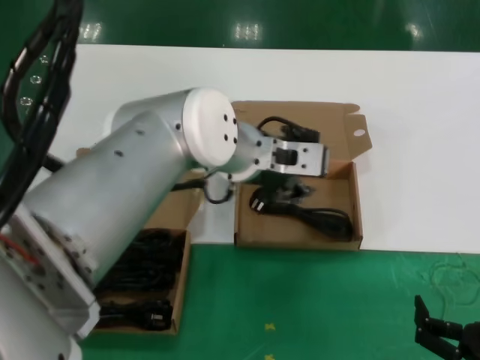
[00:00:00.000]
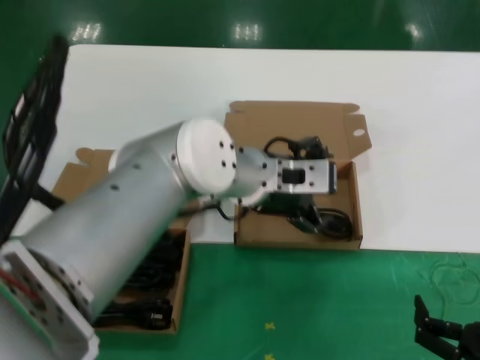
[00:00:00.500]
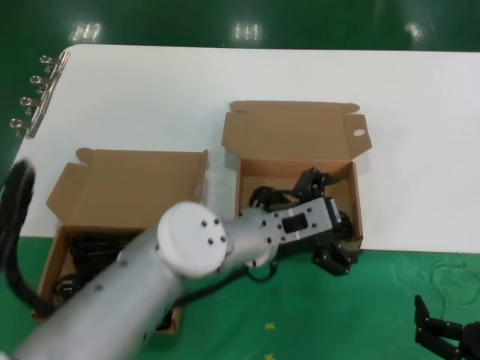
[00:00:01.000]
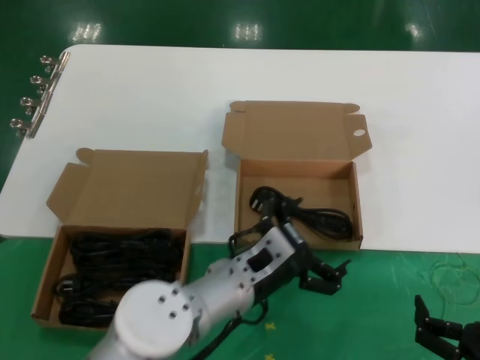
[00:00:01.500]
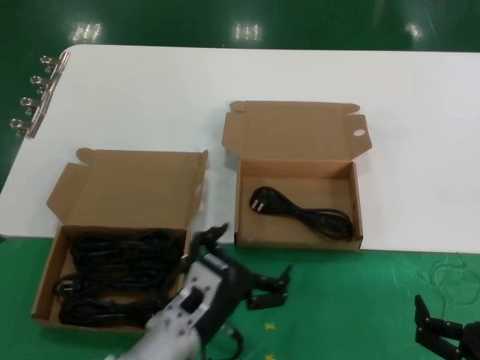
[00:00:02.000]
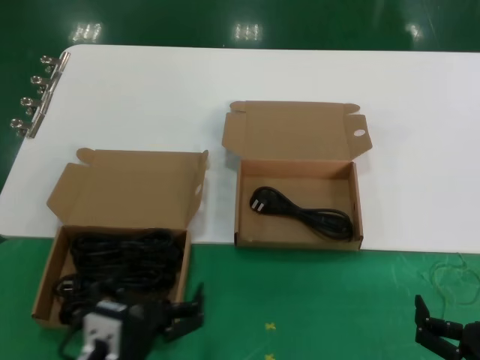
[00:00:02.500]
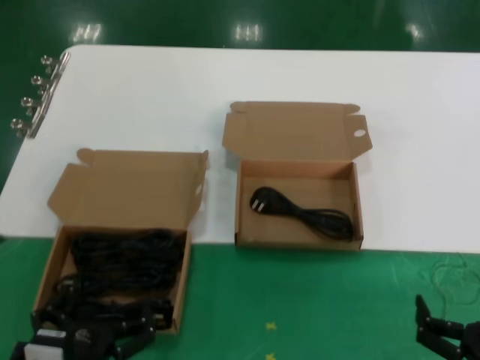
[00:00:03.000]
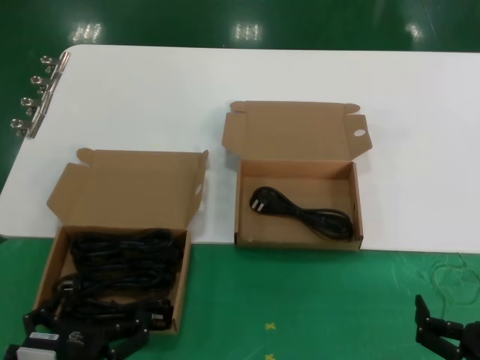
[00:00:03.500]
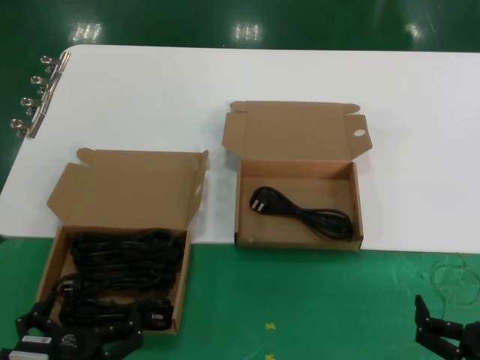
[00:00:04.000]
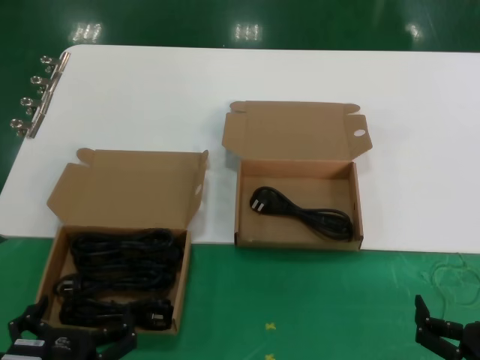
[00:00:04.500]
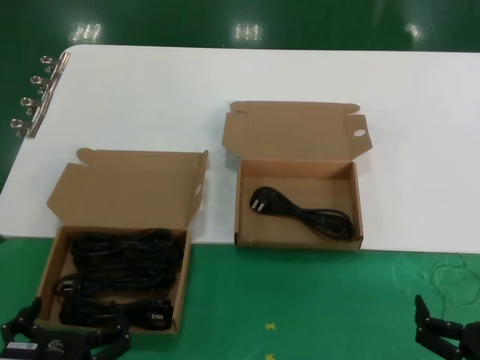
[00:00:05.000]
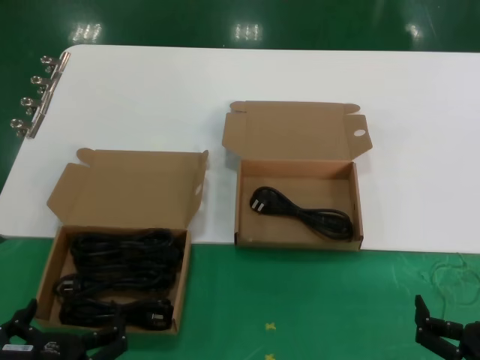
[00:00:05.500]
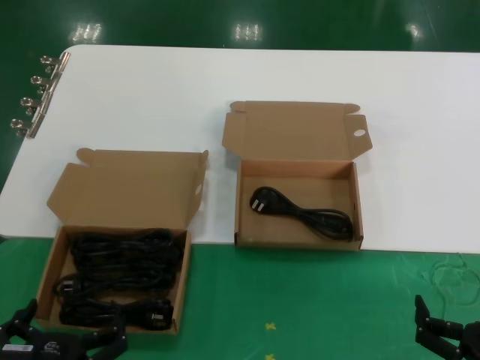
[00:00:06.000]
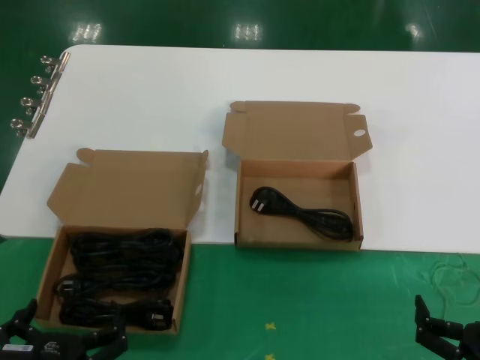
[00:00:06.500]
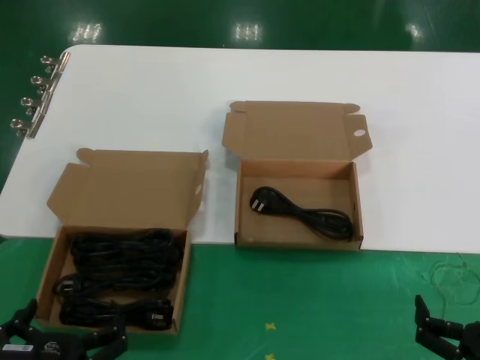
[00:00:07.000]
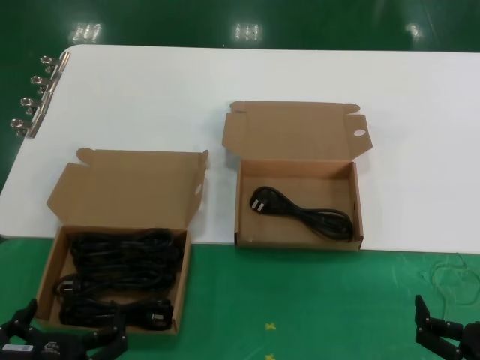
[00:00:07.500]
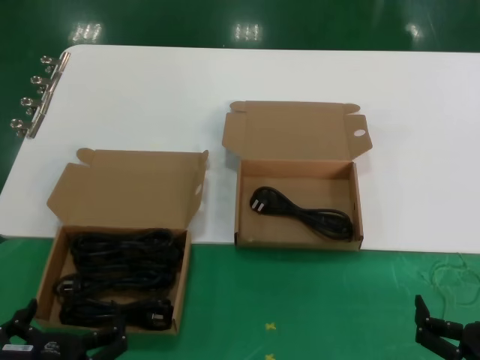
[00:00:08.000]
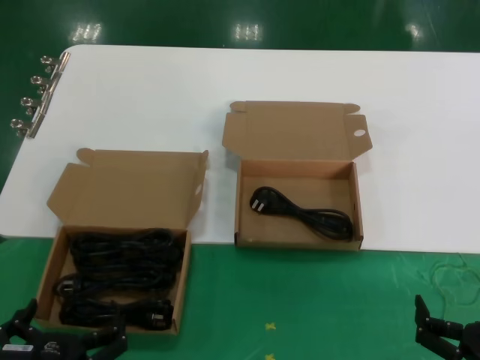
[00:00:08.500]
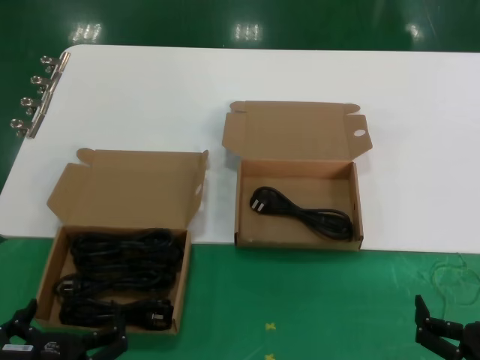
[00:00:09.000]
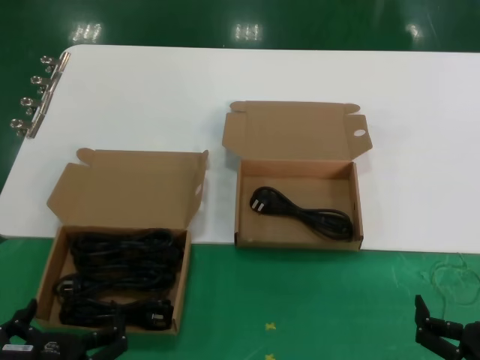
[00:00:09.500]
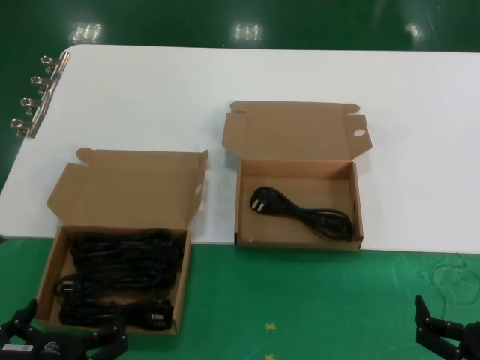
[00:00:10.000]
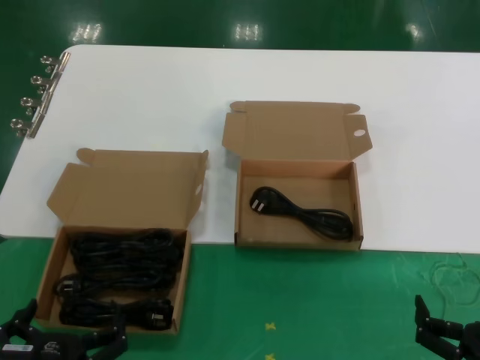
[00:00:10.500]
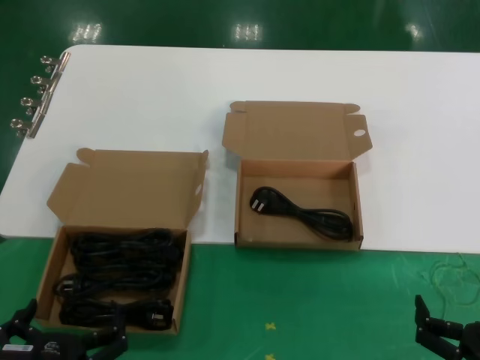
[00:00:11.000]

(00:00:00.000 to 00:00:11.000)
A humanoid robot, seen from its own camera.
Task of the whole recording: take the parts from the box containing them and put them into an empty box.
00:00:00.000 - 00:00:02.000: The left hand is displaced downward and backward by some 25 cm.
00:00:02.000 - 00:00:03.500: The left hand moves backward and to the left, about 15 cm.
00:00:03.500 - 00:00:05.500: The hands stay close to where they were, moving slightly.
00:00:05.500 - 00:00:11.000: Neither hand changes place.

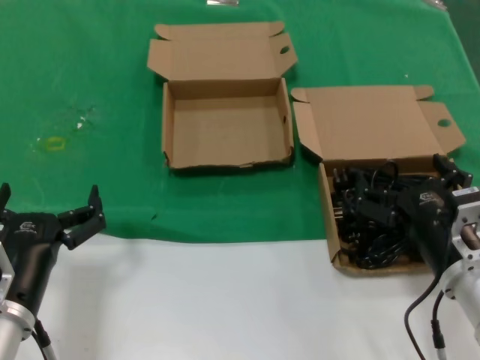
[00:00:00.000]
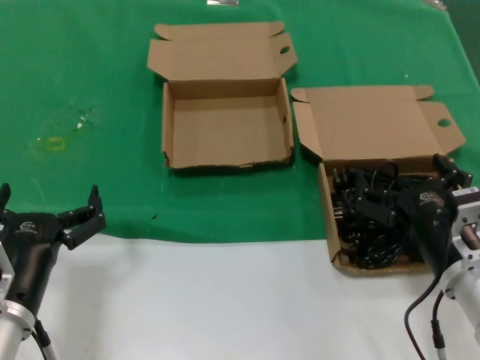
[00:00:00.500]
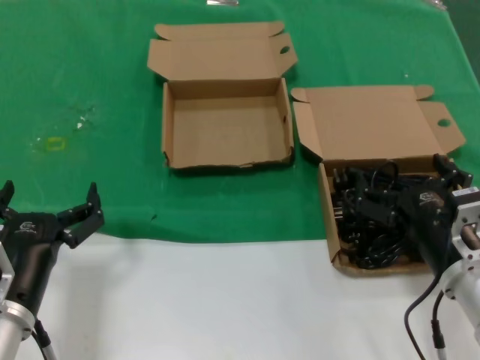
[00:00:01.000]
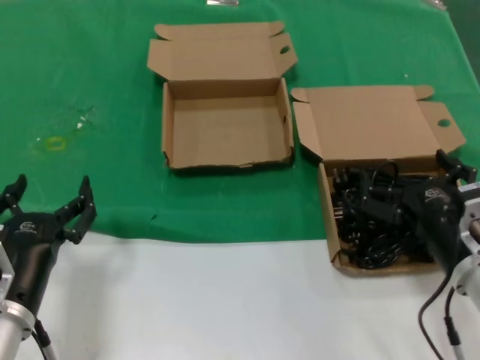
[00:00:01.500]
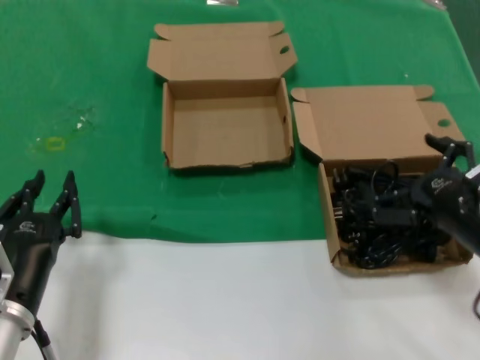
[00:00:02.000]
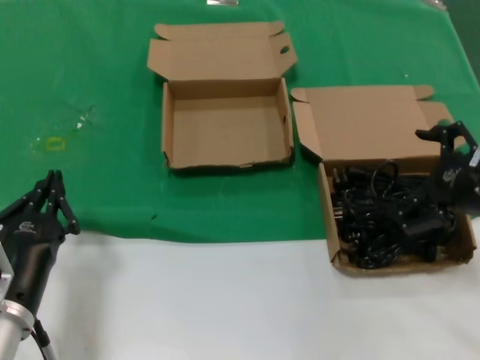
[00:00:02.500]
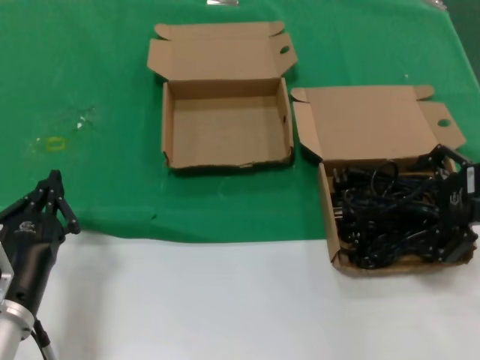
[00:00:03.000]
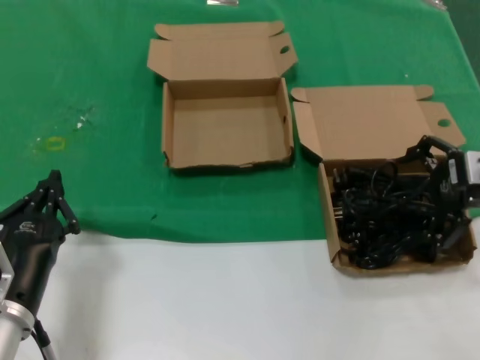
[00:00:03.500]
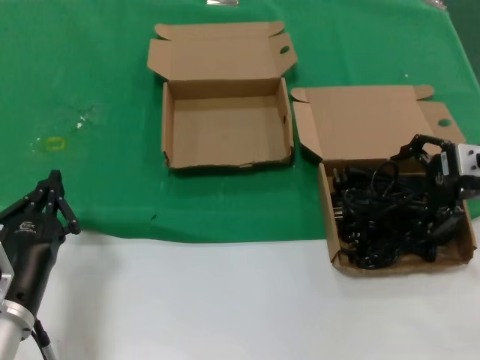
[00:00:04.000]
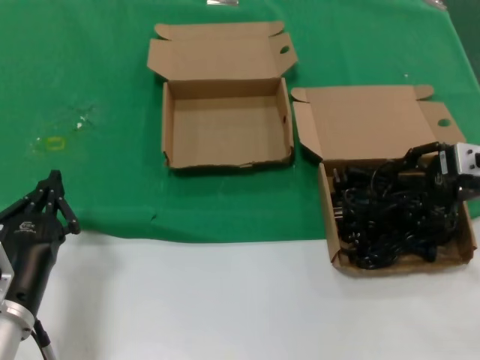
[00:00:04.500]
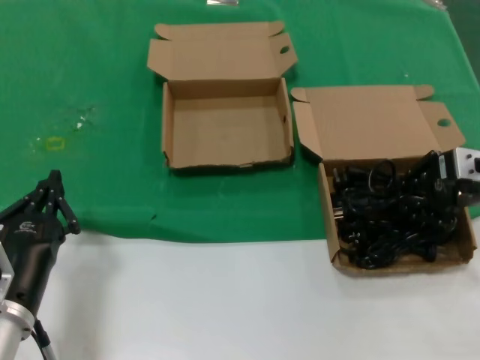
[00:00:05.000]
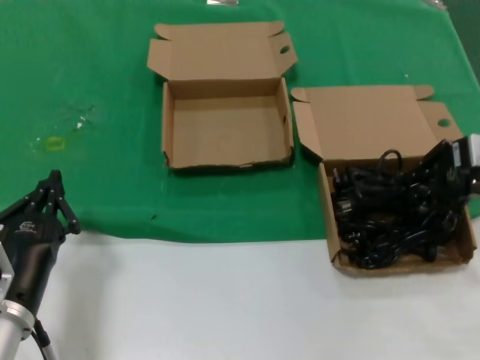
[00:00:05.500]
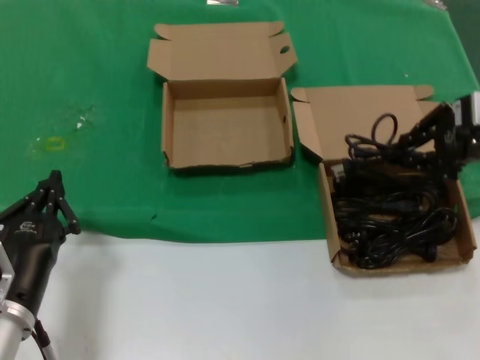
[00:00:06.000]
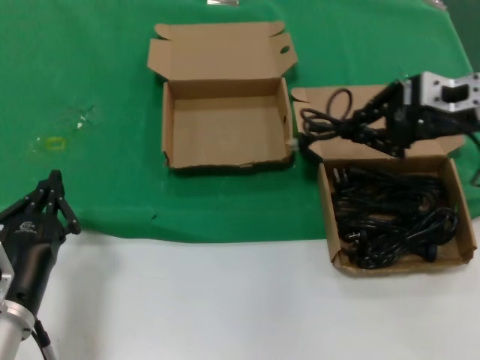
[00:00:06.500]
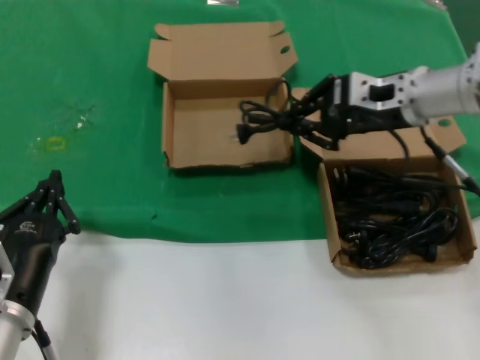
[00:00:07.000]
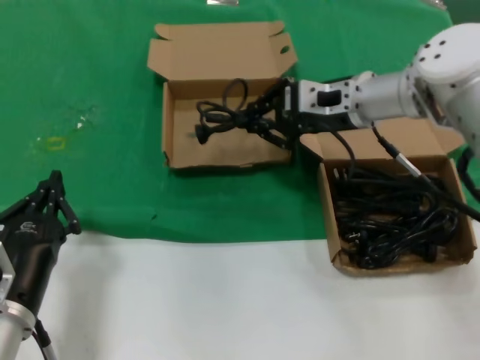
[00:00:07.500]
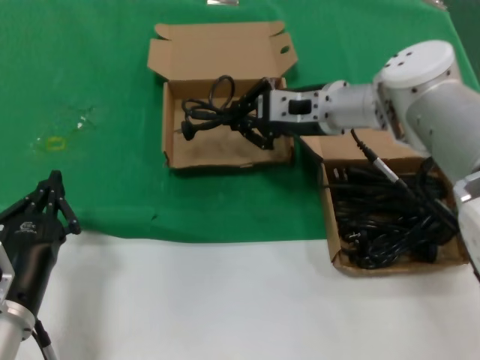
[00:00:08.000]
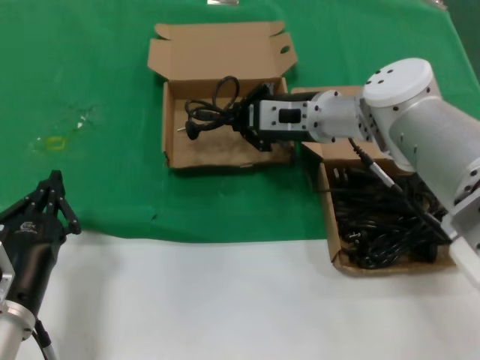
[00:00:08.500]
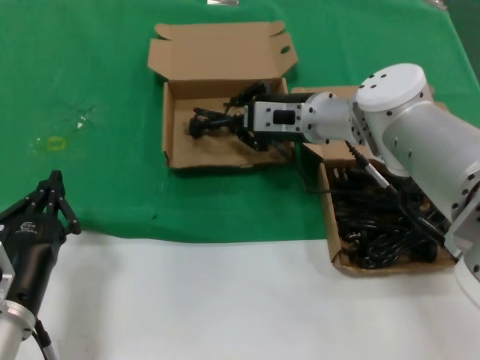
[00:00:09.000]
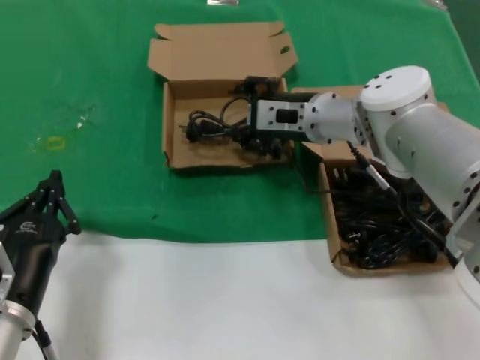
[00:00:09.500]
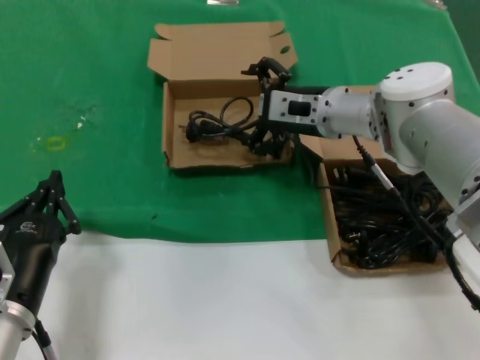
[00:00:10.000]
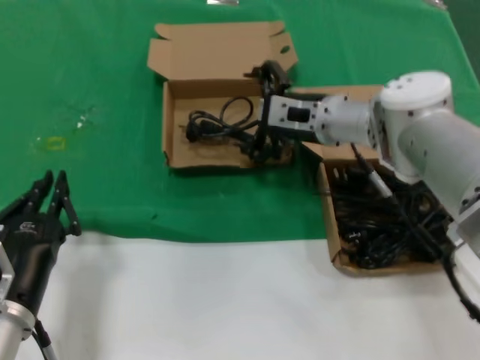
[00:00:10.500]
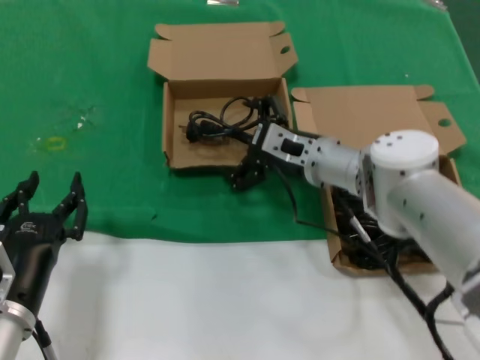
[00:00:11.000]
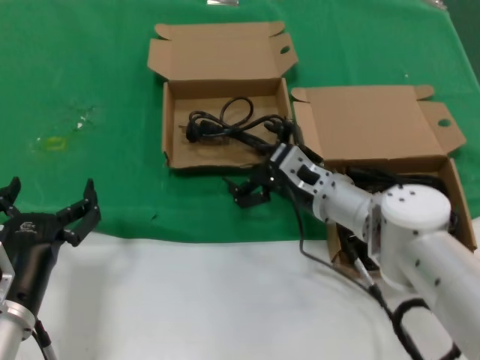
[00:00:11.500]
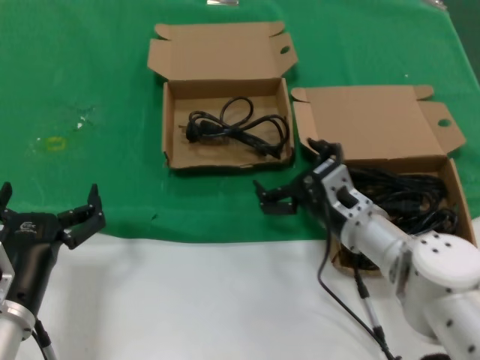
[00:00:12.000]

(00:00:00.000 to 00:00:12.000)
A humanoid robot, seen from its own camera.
Task of the whole recording: take the parts from the box containing them and put them into an empty box.
Step, 00:00:00.000 - 00:00:04.500: Grasp the data cable.
Step, 00:00:05.000 - 00:00:09.000: Place the data cable in the another box.
00:00:00.000 - 00:00:02.000: The right hand shifts about 10 cm to the right and upward.
00:00:02.000 - 00:00:04.000: The right hand shifts roughly 20 cm forward, upward and to the right.
00:00:04.000 - 00:00:06.000: The right hand moves upward, some 5 cm.
00:00:06.000 - 00:00:08.000: The right hand is displaced to the left and forward by approximately 25 cm.
00:00:08.000 - 00:00:10.000: There are only small adjustments of the hands.
00:00:10.000 - 00:00:12.000: The right hand shifts approximately 20 cm downward and backward.

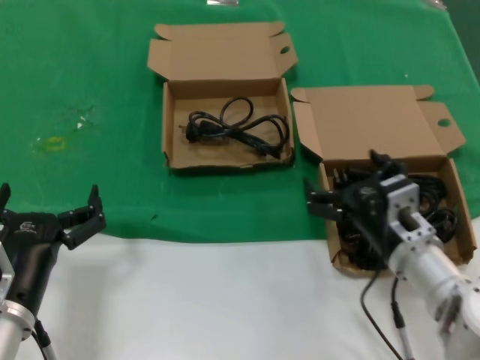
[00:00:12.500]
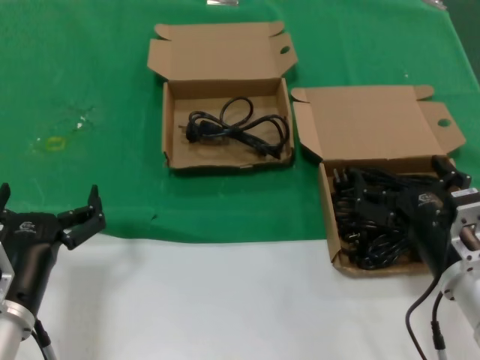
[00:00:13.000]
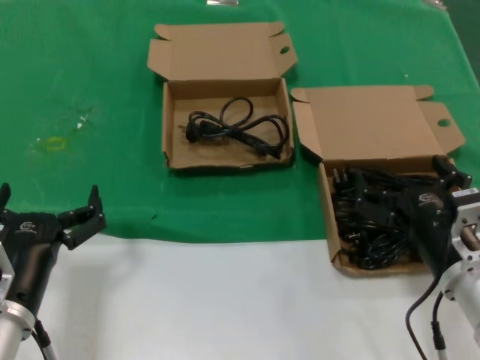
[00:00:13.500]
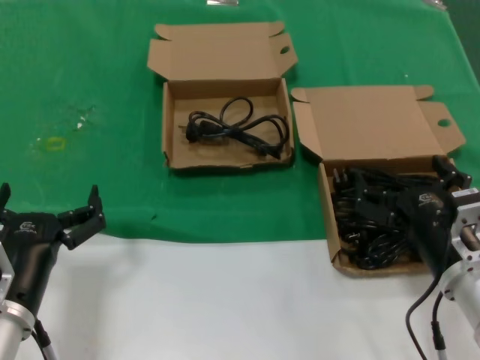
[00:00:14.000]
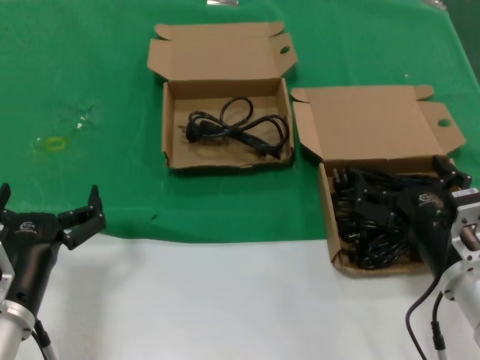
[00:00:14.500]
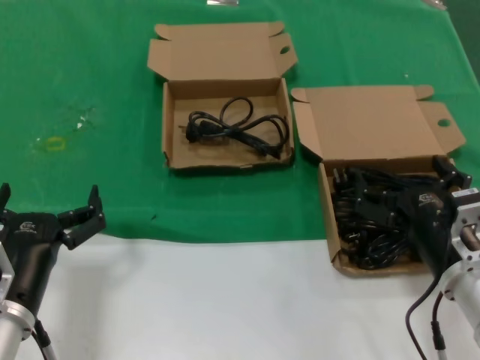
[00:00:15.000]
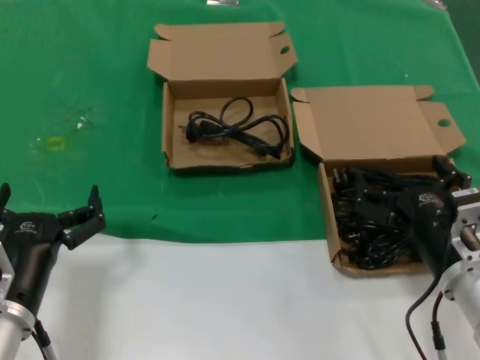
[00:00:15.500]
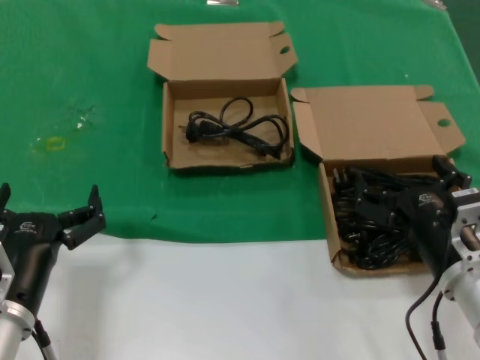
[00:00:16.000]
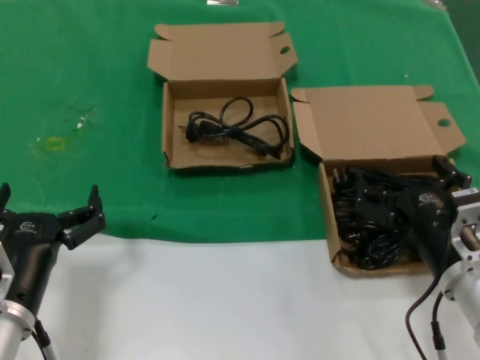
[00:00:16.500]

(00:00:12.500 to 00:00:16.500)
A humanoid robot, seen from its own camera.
Task of the whole recording: take the parts from the box containing them and put them into an empty box.
00:00:12.500 - 00:00:14.500: The right hand shifts approximately 5 cm backward.
00:00:14.500 - 00:00:16.500: Neither hand changes place.
